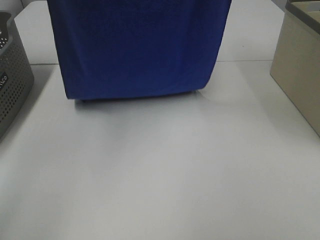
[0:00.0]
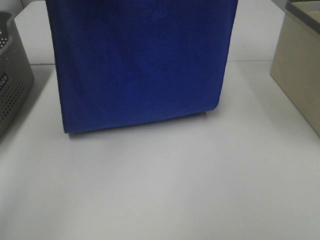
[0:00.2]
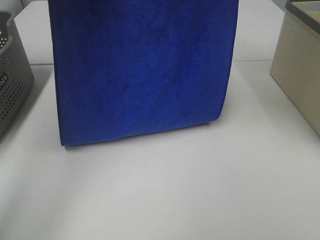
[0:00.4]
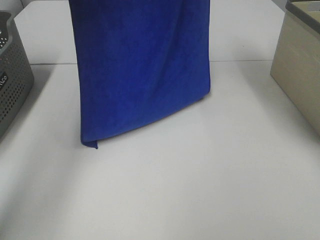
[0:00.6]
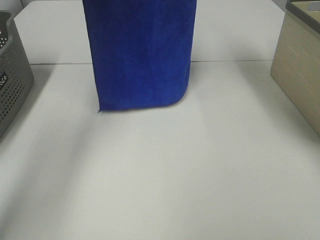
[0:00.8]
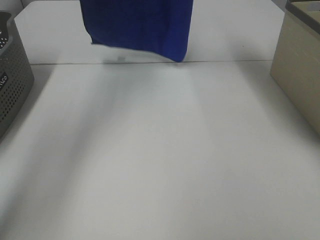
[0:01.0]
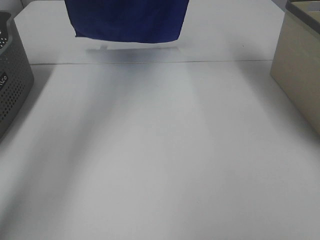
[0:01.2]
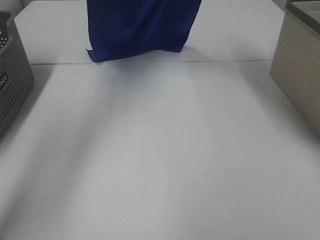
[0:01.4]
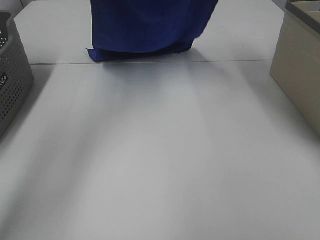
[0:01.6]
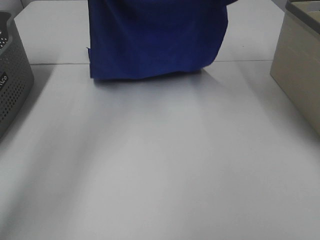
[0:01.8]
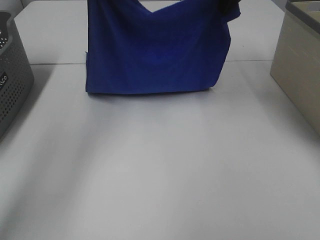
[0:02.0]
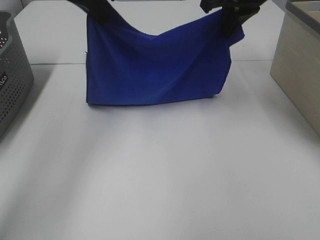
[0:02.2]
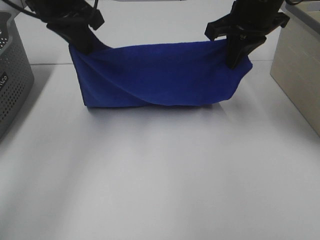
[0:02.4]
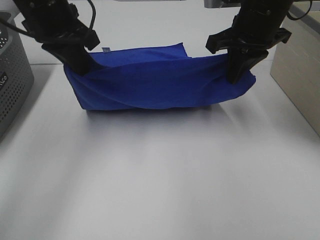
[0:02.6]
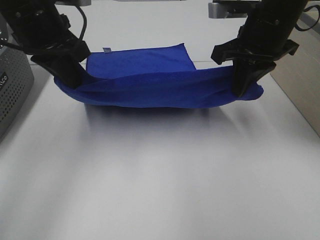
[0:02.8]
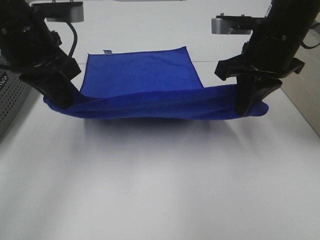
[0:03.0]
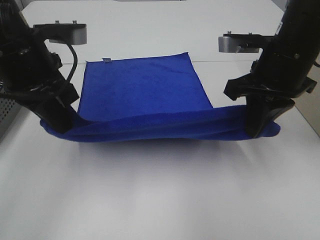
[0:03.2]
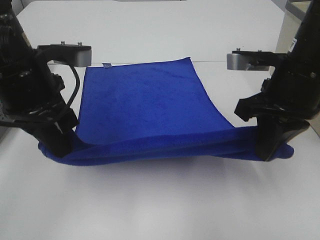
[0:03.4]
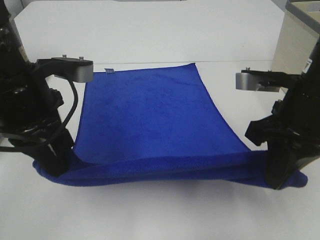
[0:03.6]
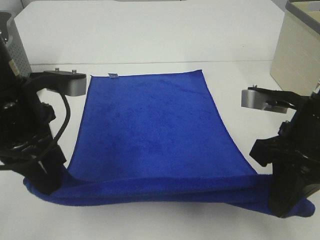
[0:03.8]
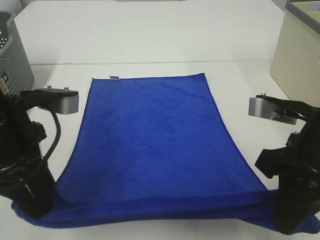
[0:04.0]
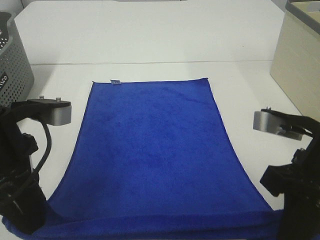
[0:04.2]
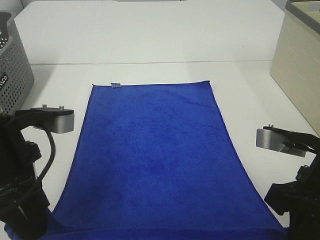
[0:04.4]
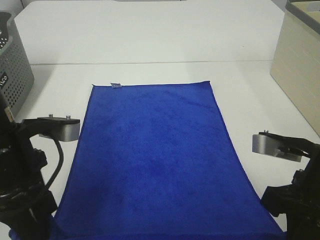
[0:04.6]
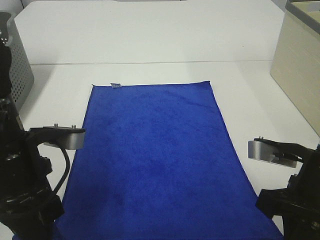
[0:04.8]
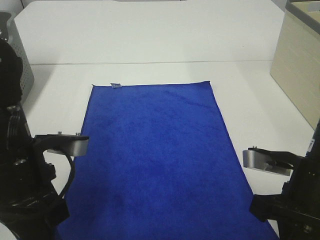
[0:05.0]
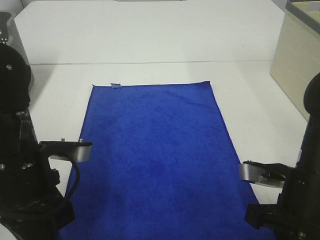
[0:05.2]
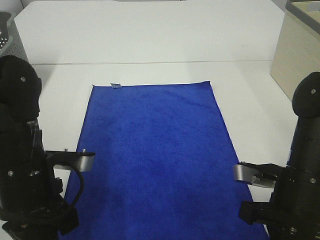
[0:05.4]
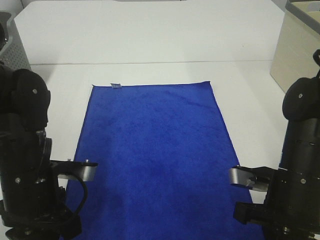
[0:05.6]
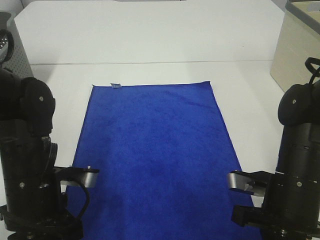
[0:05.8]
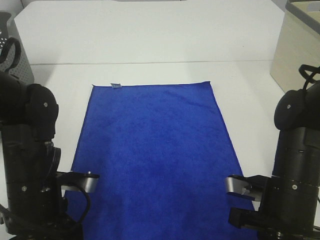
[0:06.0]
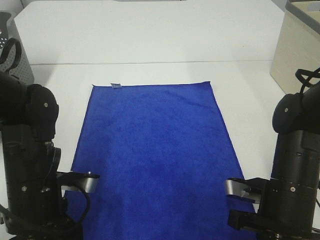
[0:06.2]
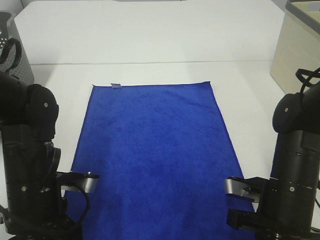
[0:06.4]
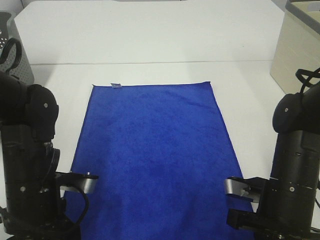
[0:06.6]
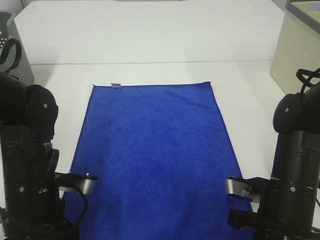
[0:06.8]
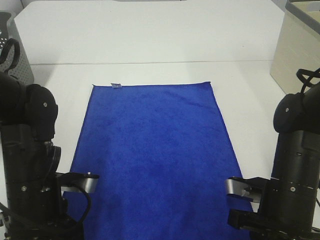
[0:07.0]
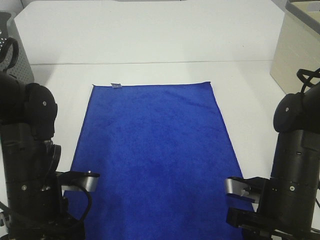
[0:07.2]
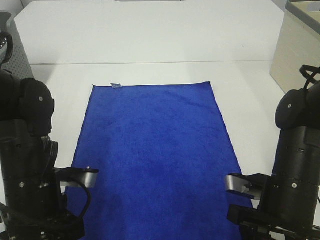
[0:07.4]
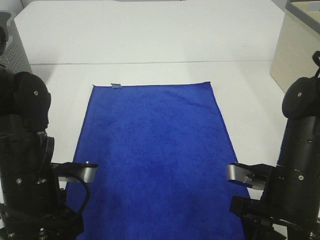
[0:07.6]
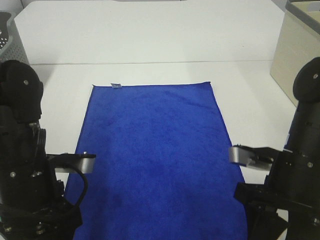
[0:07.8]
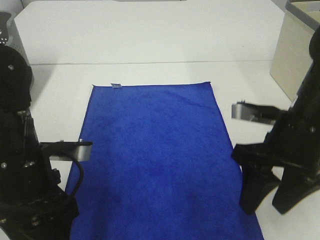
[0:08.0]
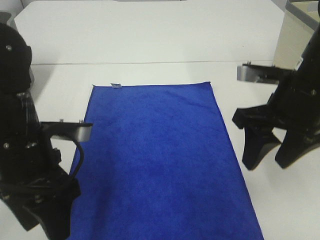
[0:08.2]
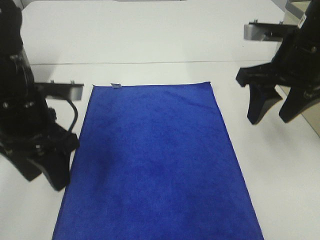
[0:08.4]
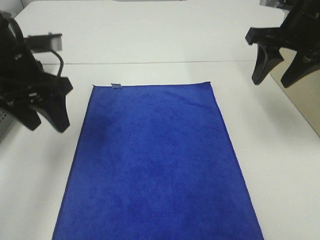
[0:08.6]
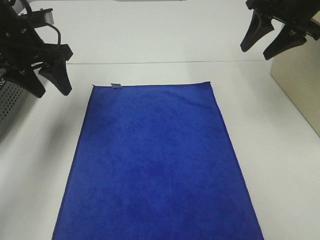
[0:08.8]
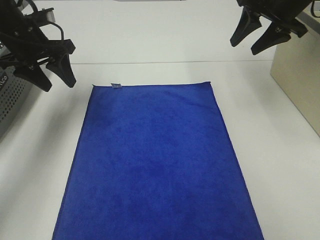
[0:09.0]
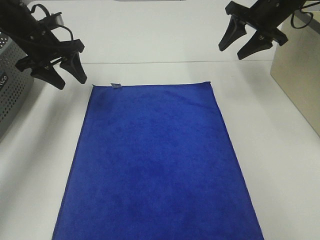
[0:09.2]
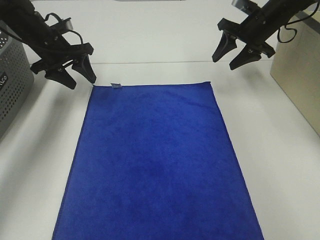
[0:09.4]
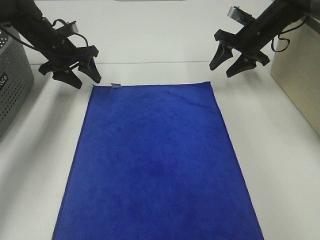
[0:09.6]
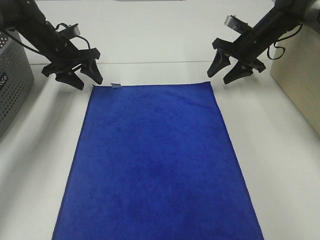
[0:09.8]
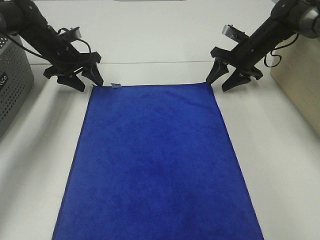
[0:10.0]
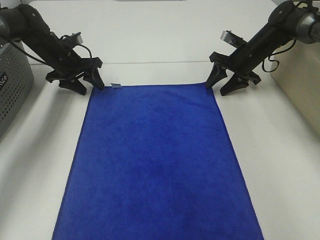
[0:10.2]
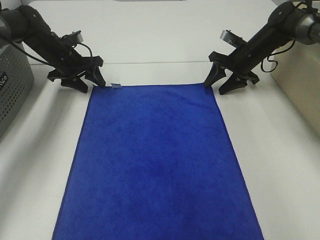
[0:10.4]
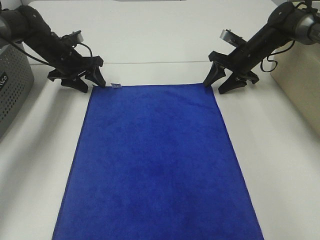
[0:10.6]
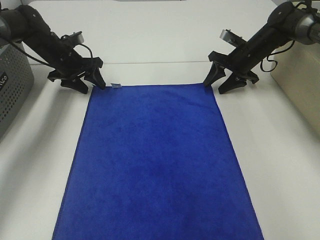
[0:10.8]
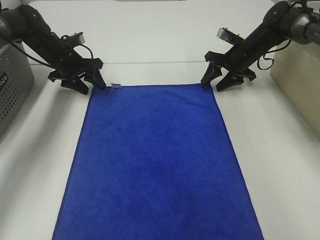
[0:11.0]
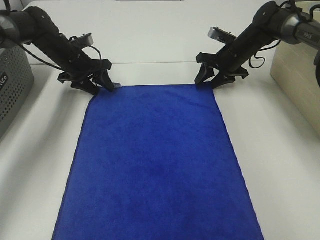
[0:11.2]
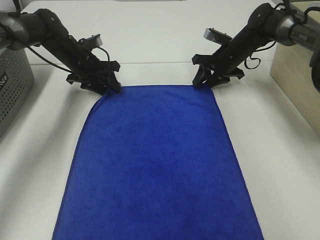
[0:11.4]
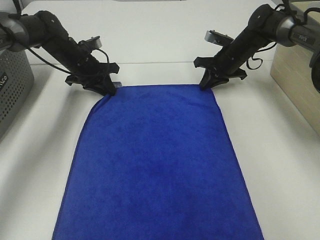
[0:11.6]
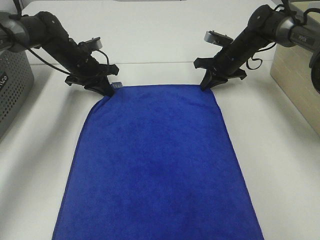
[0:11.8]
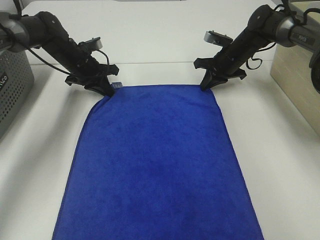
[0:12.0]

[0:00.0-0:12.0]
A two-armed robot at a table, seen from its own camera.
Task of the whole recording: Remove the towel and place it.
Step, 0.0 to 2.4 s: Left hand: spread the blue towel flat on the table.
Step, 0.0 to 2.4 s: Right hand: spread the blue towel flat on the table.
Step, 2.6 to 8.8 s: Left hand:adjust the blue towel.
Step, 2.6 to 8.8 s: Right hand:adjust the blue towel.
0.0 to 1.6 s: The right gripper goes about 15 cm downward and forward; the left gripper shifts about 15 cm forward and downward.
1.6 to 3.0 s: The grippers both shift backward and downward by about 20 cm.
3.0 to 4.4 s: The left gripper travels backward and downward by some 15 cm. The right gripper heads backward, covering roughly 15 cm.
4.4 to 6.0 s: Both grippers move downward, some 10 cm.
6.0 to 7.6 s: The right gripper opens up; the left gripper opens its fingers.
7.6 to 9.0 s: The left gripper travels forward by approximately 25 cm; the right gripper is displaced forward and upward by some 30 cm.
9.0 to 10.4 s: Both grippers travel together downward and forward, roughly 15 cm.
10.4 to 12.0 s: The left gripper closes. The right gripper closes.

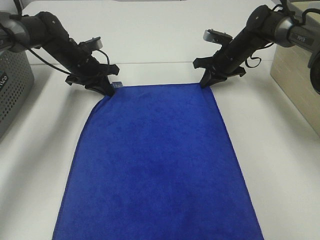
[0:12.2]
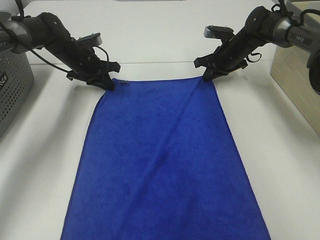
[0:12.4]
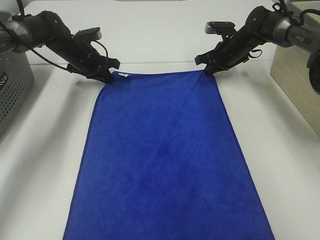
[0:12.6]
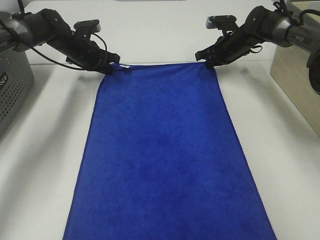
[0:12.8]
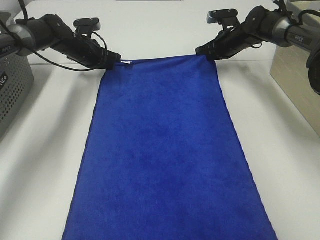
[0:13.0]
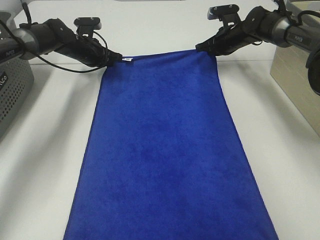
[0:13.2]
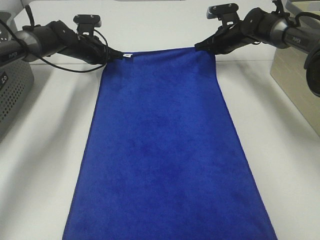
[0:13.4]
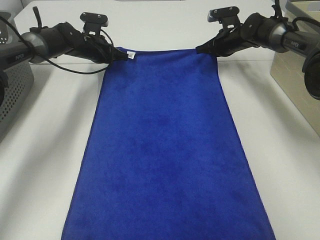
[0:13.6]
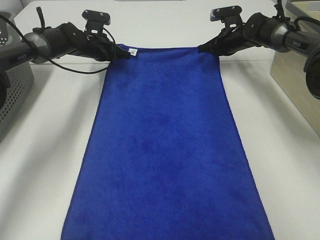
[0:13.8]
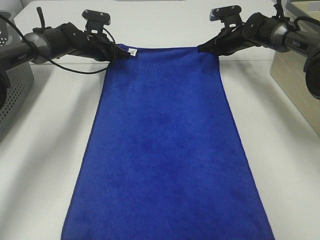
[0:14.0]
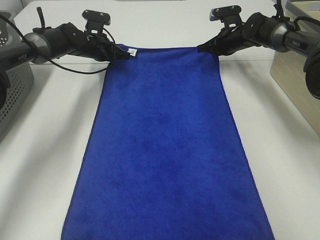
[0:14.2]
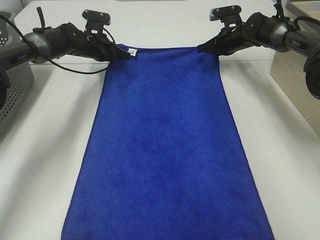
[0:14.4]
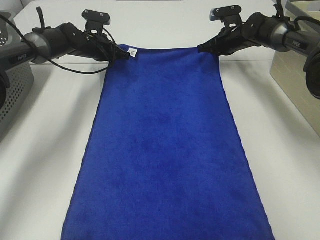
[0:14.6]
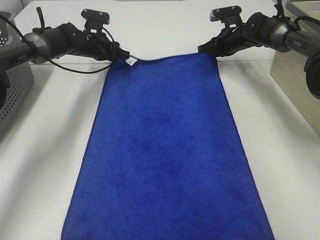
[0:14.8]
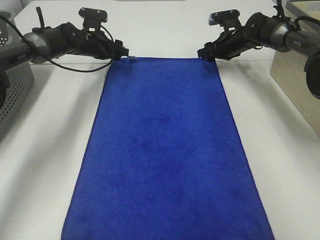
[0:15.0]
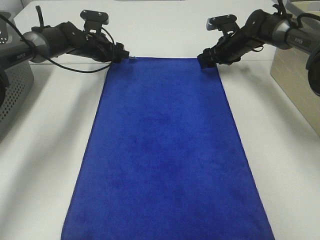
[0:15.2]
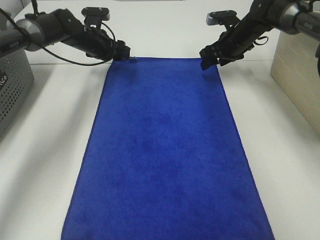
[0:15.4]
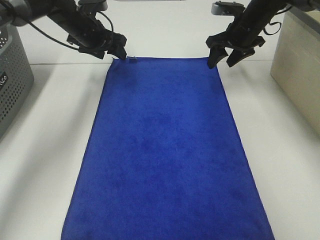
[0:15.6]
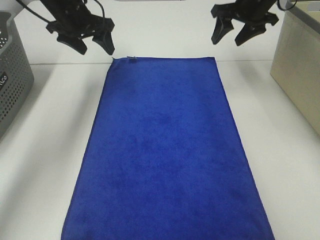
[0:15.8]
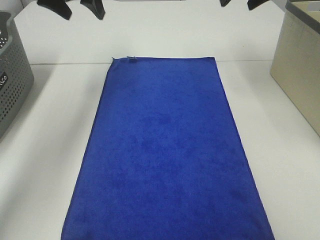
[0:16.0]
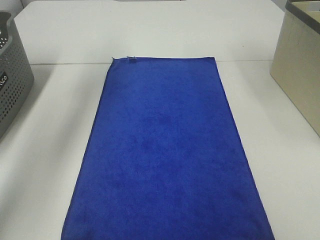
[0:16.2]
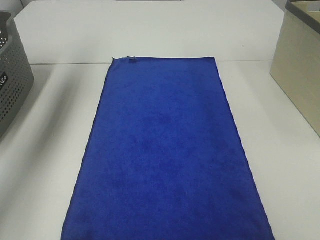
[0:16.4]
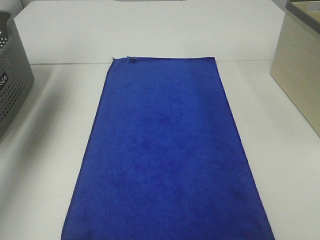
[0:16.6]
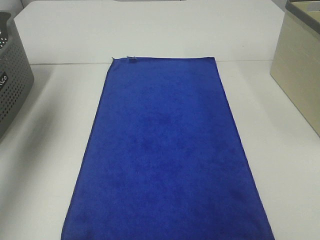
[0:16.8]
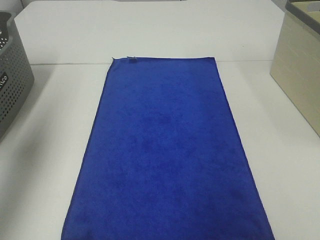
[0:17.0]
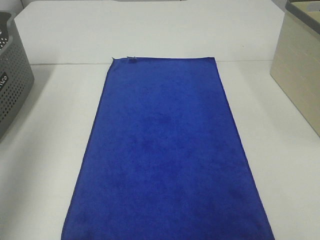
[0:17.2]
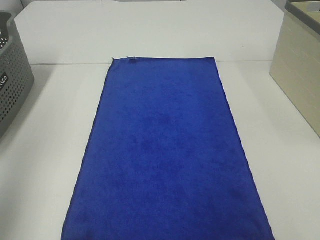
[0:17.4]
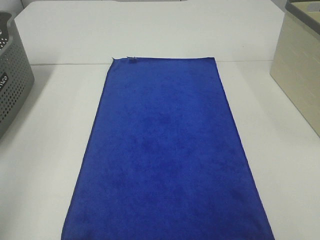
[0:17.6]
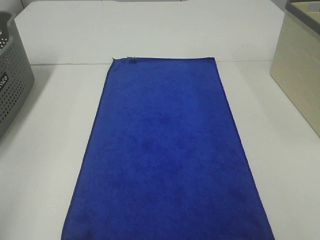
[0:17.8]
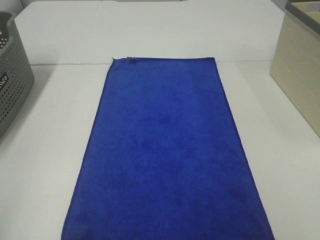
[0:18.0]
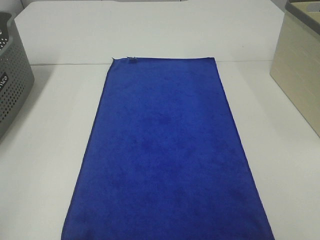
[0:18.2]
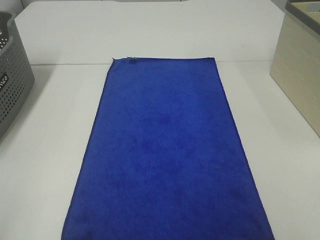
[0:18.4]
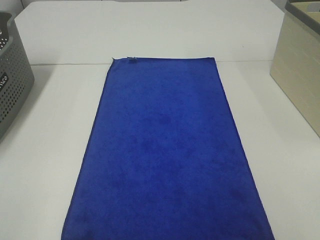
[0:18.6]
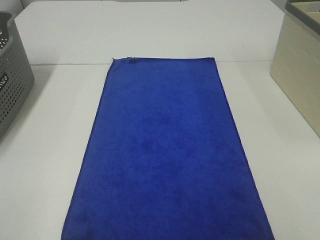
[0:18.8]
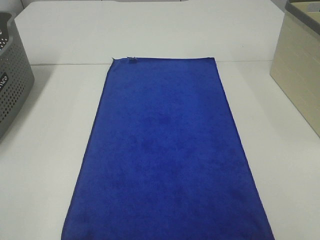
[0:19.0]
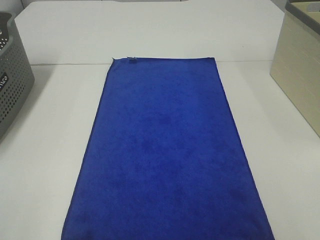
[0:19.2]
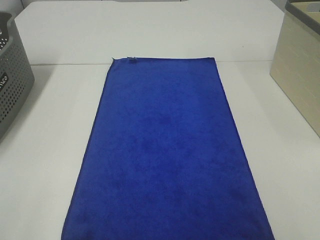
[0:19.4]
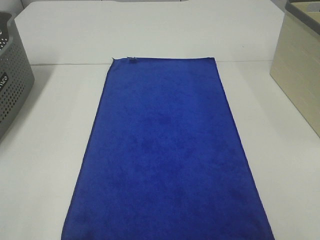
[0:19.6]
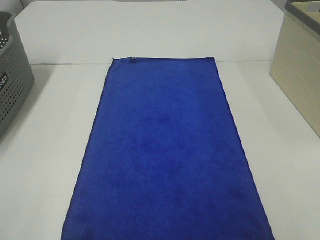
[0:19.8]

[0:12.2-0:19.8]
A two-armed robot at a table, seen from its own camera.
Task of the whole recording: Remove the towel and place it.
12.2 to 13.8 s: The right gripper shifts by roughly 5 cm. Meanwhile the left gripper is displaced forward by about 5 cm.
13.8 to 15.2 s: The left gripper opens its fingers, while the right gripper opens.
15.2 to 16.8 s: The left gripper goes approximately 40 cm upward, backward and to the left. The right gripper goes approximately 40 cm upward and backward.
16.8 to 18.2 s: The left gripper shifts approximately 30 cm backward.

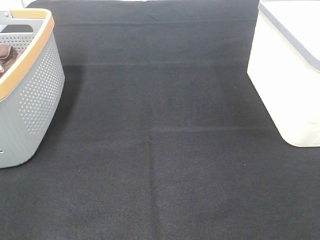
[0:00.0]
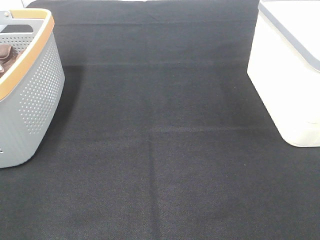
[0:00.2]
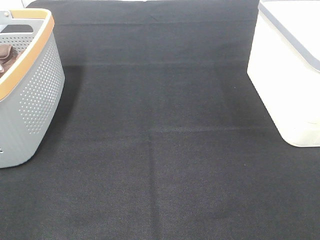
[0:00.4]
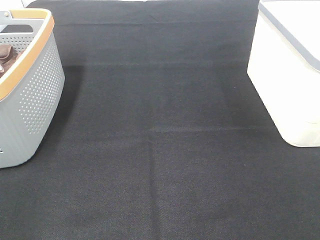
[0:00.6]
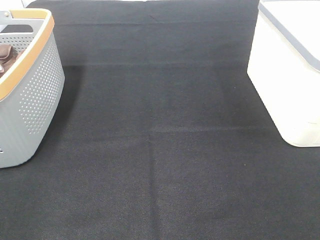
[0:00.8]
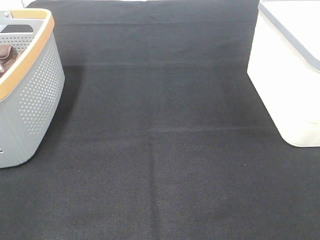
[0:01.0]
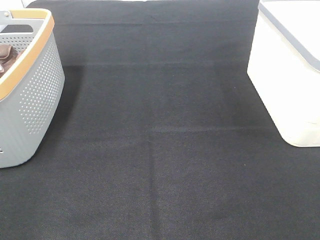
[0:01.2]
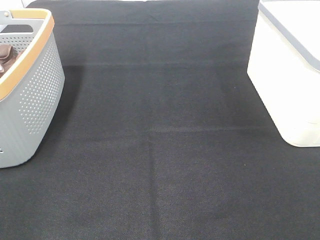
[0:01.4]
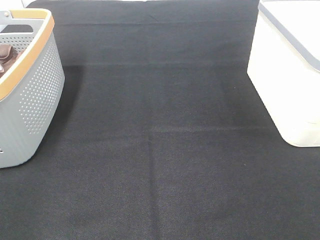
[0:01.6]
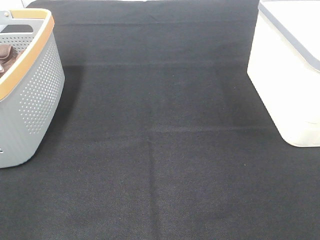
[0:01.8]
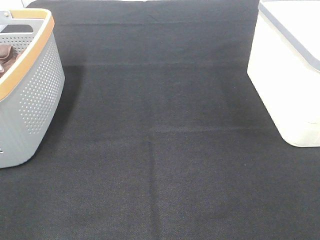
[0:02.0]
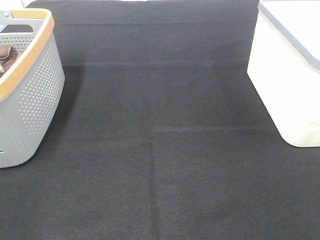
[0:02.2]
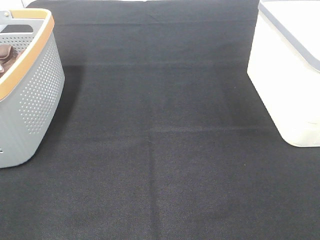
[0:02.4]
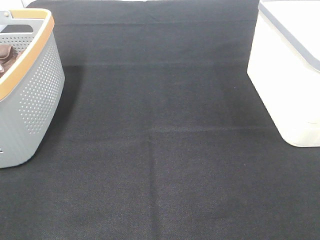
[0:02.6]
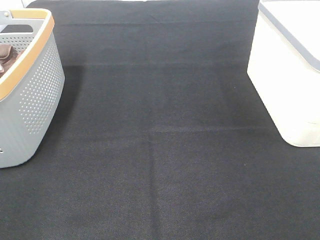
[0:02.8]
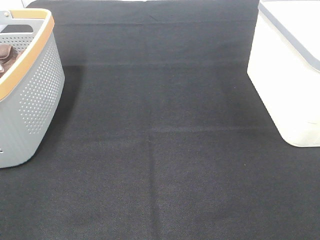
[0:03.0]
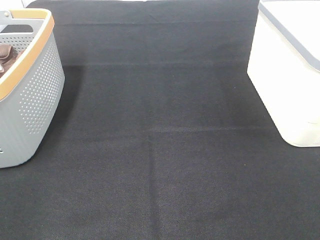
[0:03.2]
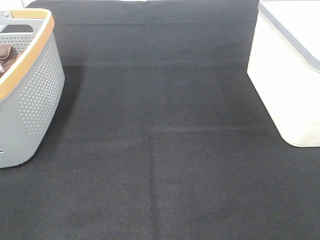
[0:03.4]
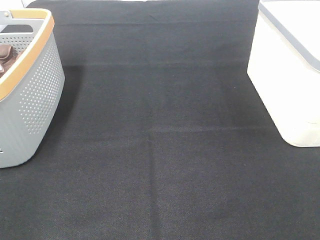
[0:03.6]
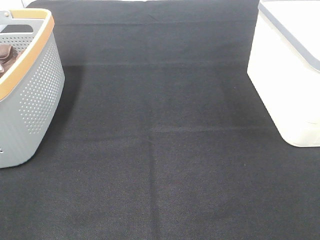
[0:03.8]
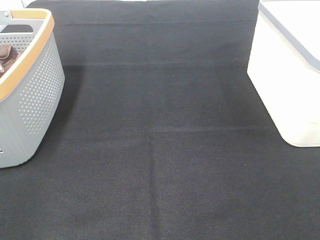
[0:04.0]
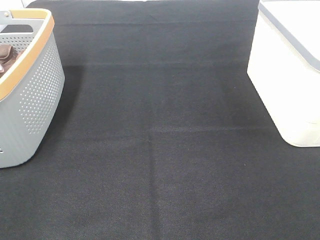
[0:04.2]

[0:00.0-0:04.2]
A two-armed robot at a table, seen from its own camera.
Task of the whole recording: Remove the towel and place it.
0.0 to 4.2 s: The two grippers keep their place.
